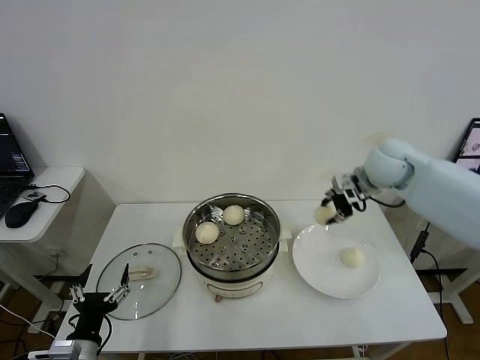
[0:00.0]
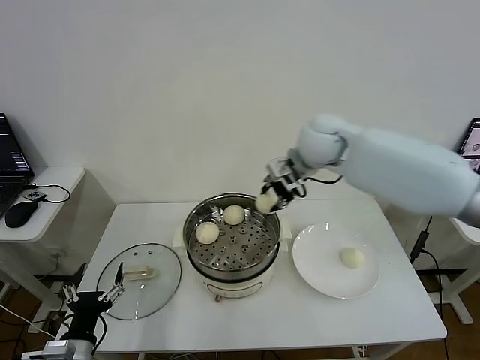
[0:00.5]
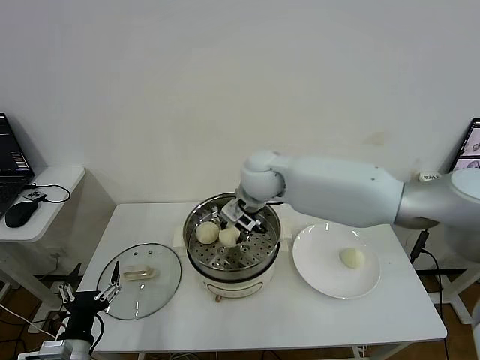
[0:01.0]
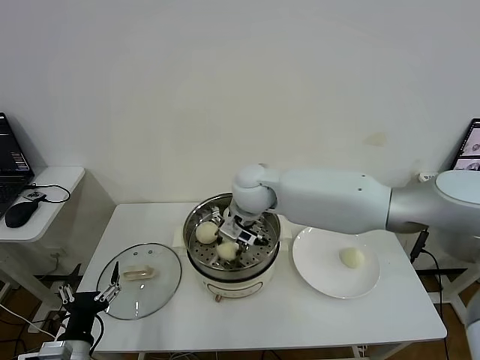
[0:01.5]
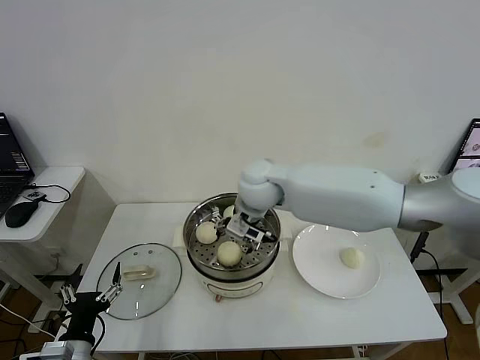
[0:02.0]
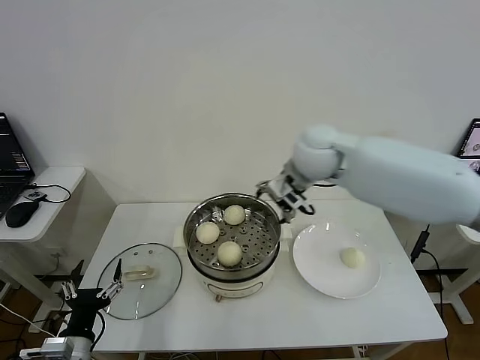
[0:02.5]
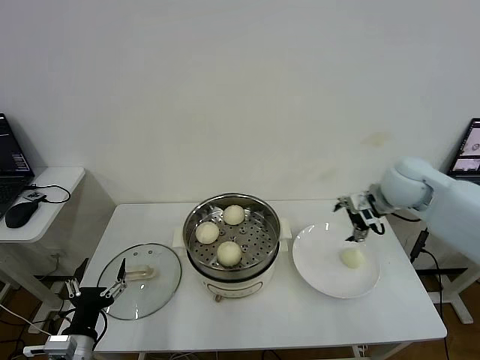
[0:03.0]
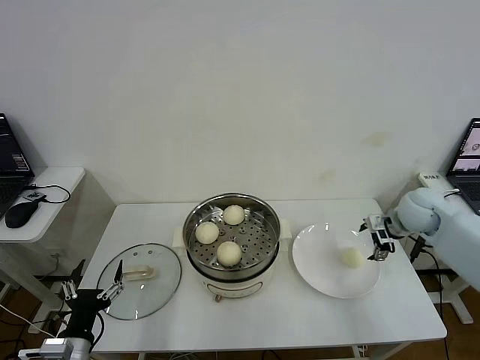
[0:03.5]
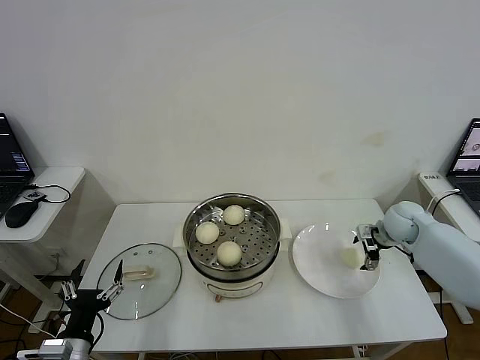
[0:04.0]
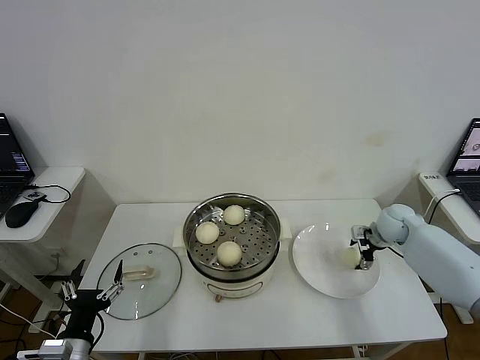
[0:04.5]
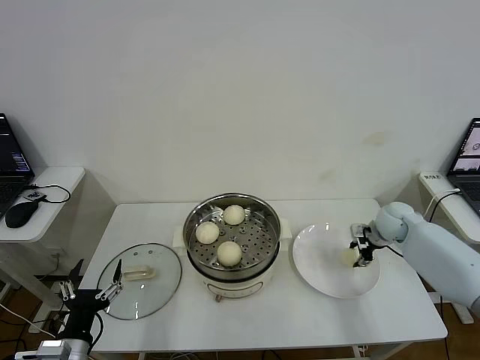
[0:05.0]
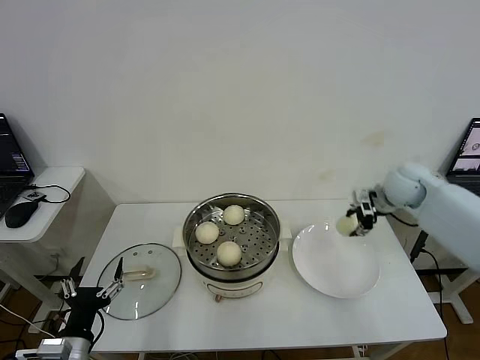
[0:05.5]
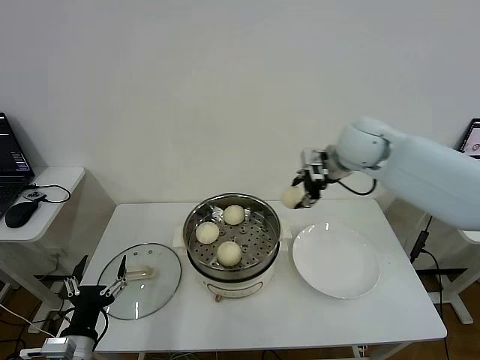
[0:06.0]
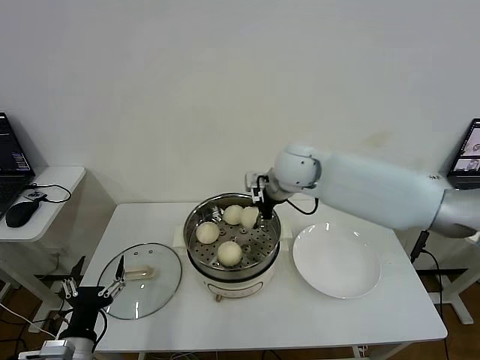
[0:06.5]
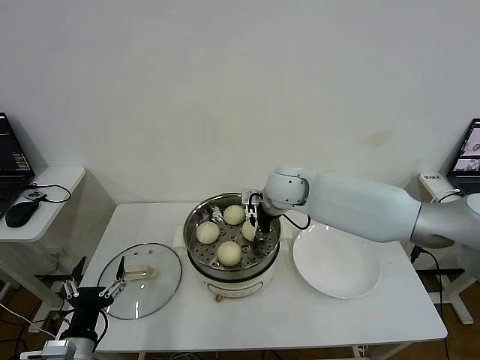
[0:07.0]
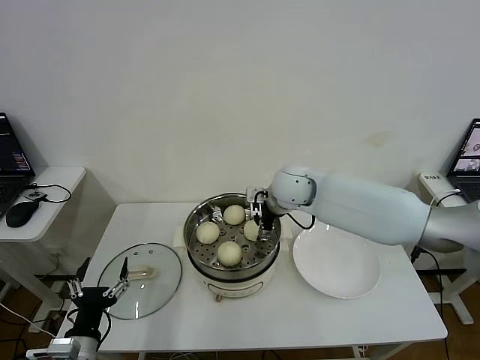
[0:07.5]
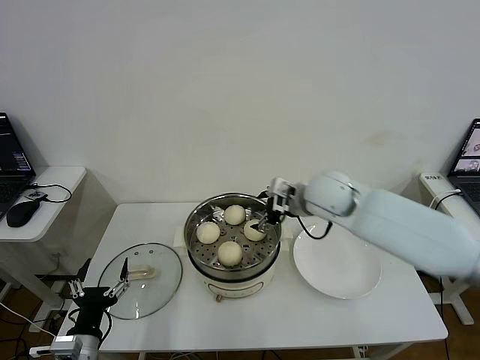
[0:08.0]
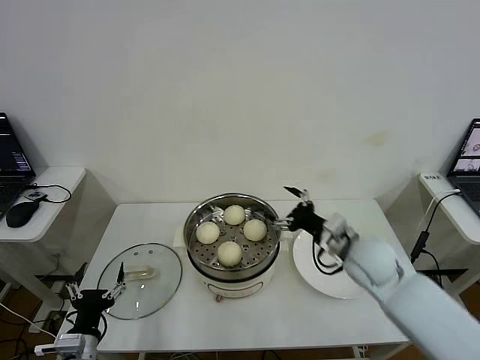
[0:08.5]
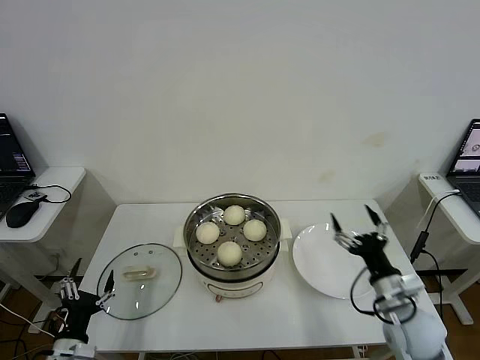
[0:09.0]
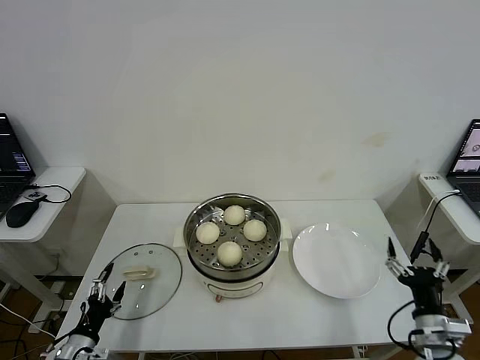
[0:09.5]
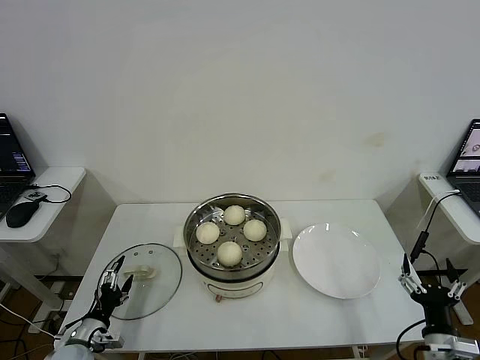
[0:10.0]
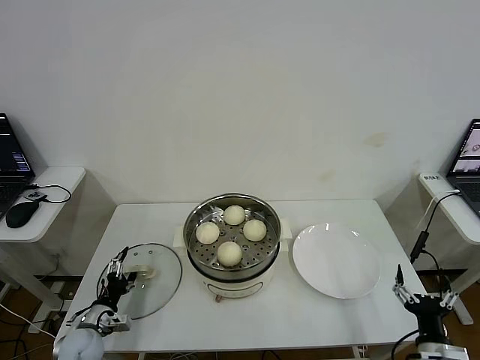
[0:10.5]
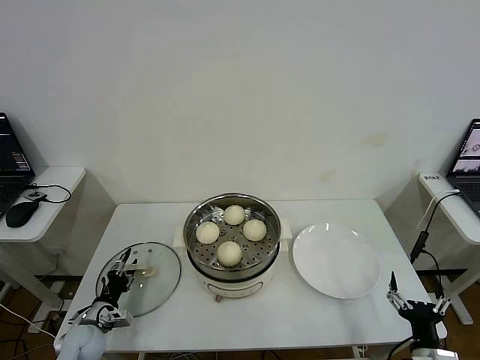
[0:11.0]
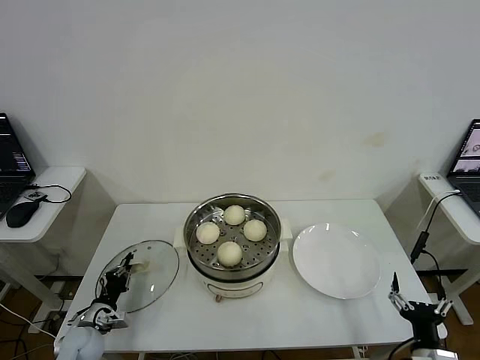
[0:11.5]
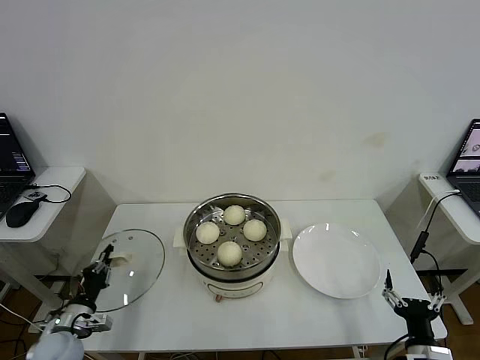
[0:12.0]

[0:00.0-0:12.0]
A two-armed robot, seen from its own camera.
Step, 0:00.0 to 0:01.5: Place the baozi on the steamer with right gripper.
Step, 0:02.5 to 0:04.5: Grasp the baozi in the plate with right gripper.
Step, 0:05.0 to 0:07.5: Place the baozi on the steamer with right gripper.
Step, 0:08.0 to 0:11.5: Grasp the pot lid with left gripper.
0:00.0 to 0:02.0: The right gripper goes approximately 25 cm to the left, and opens its fingers.
0:02.0 to 0:04.0: The right gripper shifts approximately 35 cm to the right.
0:04.0 to 0:06.0: The right gripper is displaced upward and to the left by about 30 cm, and closes its fingers.
0:06.0 to 0:08.0: The right gripper moves downward, to the left and backward, some 10 cm, and opens.
0:08.0 to 0:10.0: The left gripper moves downward, to the left and forward, approximately 15 cm. Meanwhile the right gripper shifts some 40 cm backward, to the right and downward.
0:10.0 to 0:12.0: The left gripper closes up.

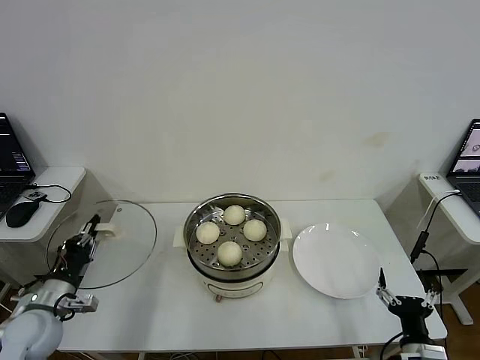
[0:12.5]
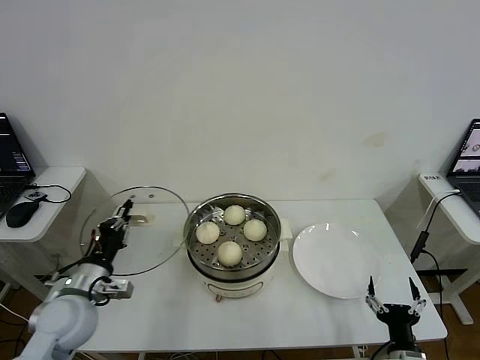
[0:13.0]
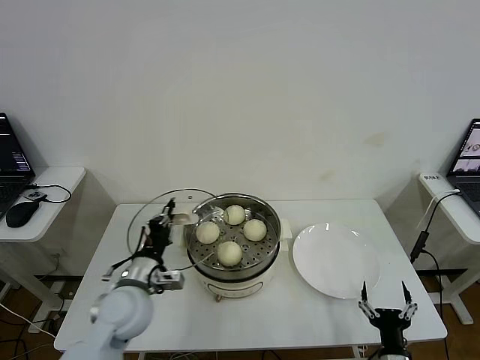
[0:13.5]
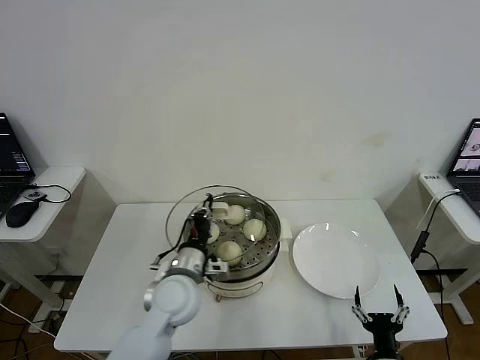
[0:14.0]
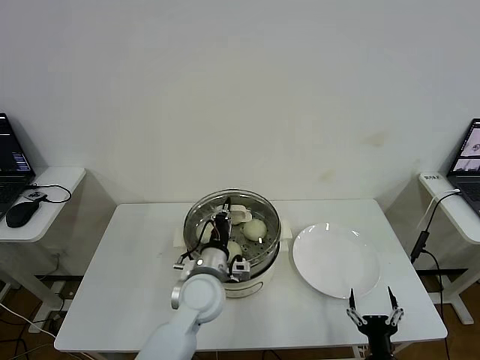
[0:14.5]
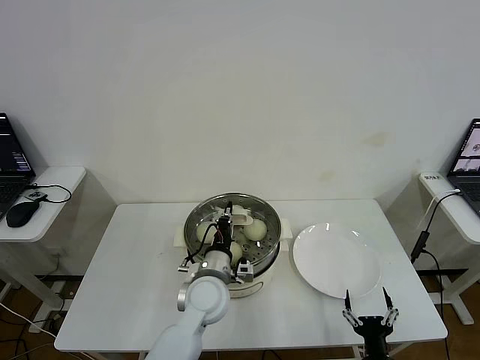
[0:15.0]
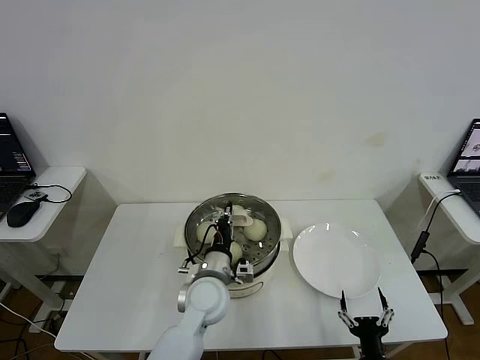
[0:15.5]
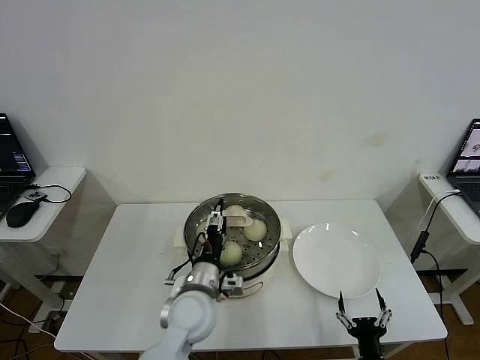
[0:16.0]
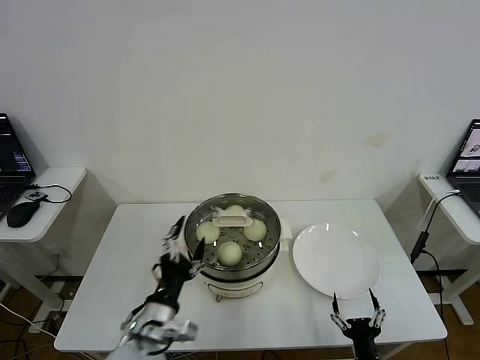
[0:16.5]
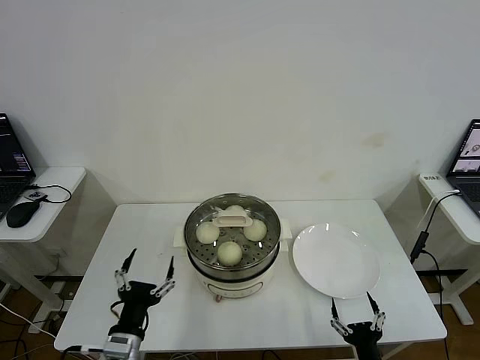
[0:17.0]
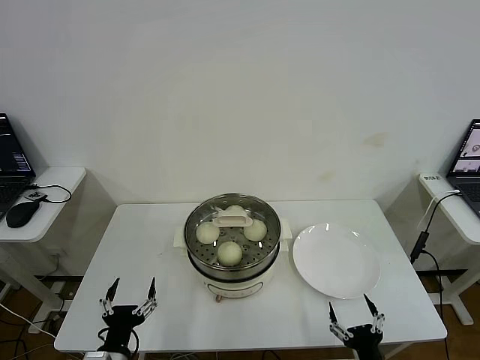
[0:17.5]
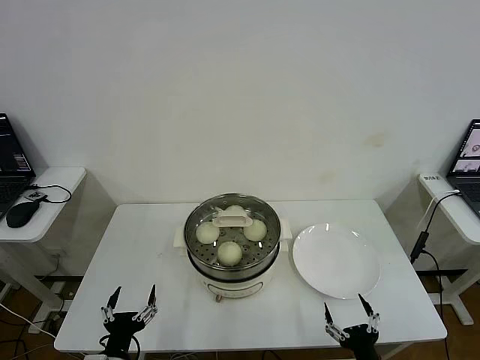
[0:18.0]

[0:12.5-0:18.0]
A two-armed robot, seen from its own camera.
Step, 0:12.5 to 0:15.5: Place the pot lid on the steamer with left gripper.
0:12.5 to 0:14.5: The left gripper heads to the right, covering some 35 cm, while the right gripper shifts roughly 10 cm downward and to the left.
0:14.5 to 0:16.0: The left gripper opens its fingers.
0:16.0 to 0:18.0: The left gripper moves to the left, backward and downward, some 25 cm.

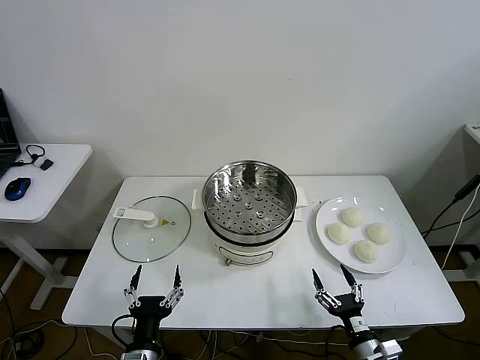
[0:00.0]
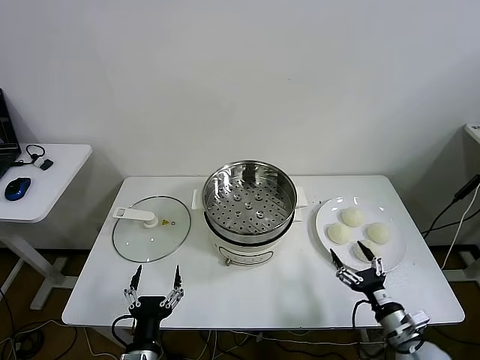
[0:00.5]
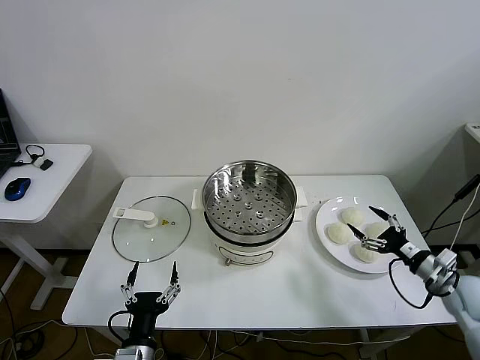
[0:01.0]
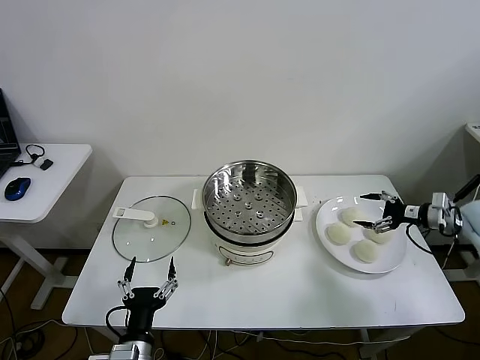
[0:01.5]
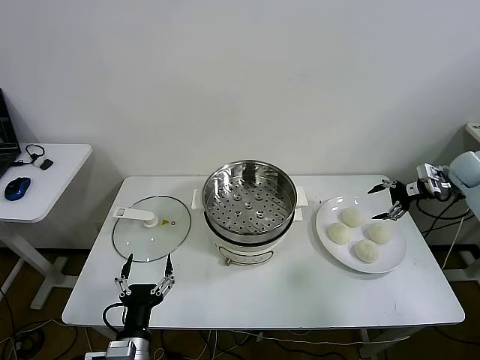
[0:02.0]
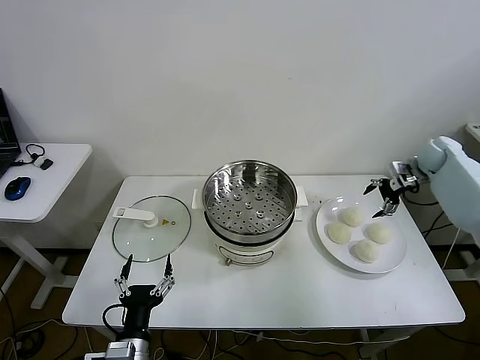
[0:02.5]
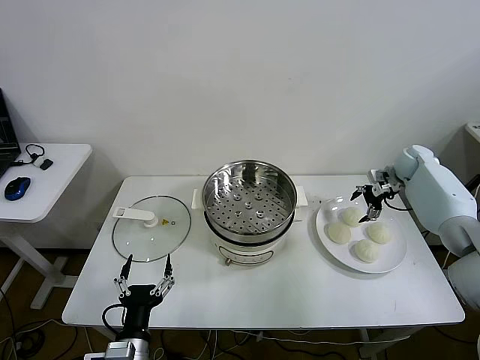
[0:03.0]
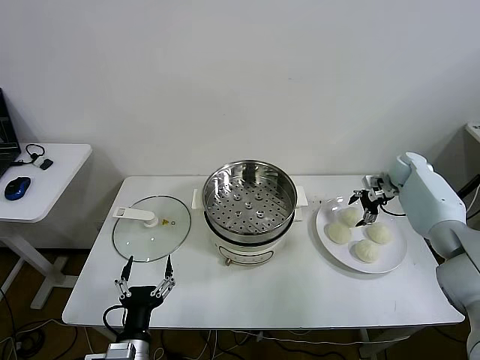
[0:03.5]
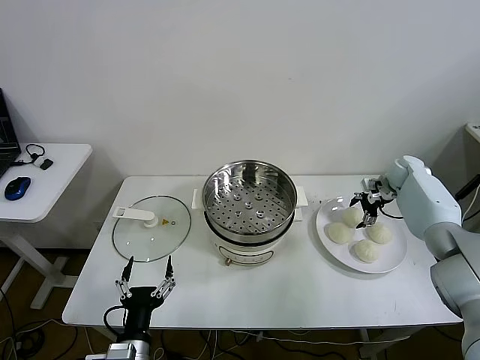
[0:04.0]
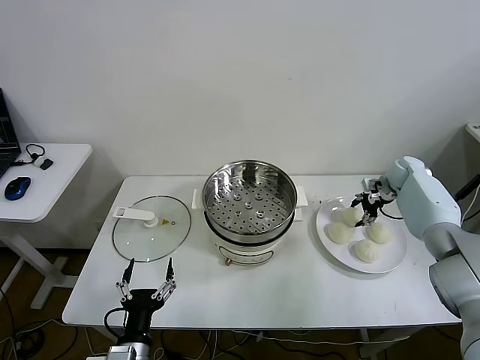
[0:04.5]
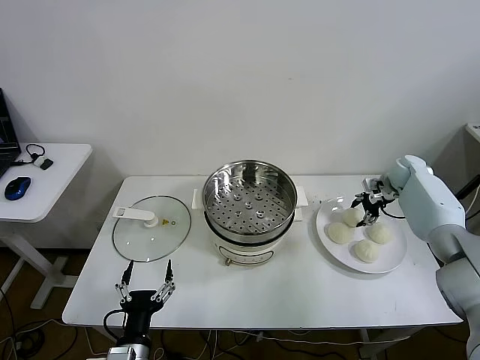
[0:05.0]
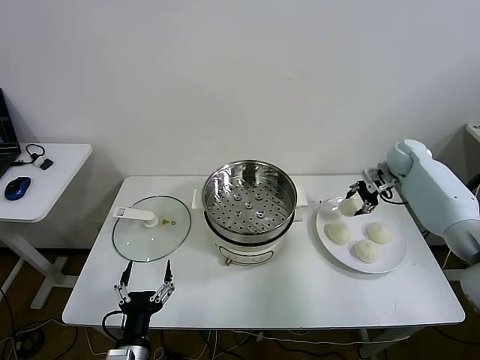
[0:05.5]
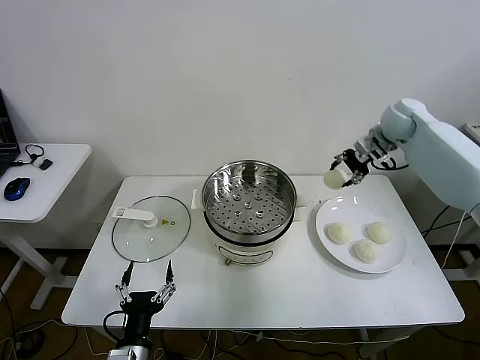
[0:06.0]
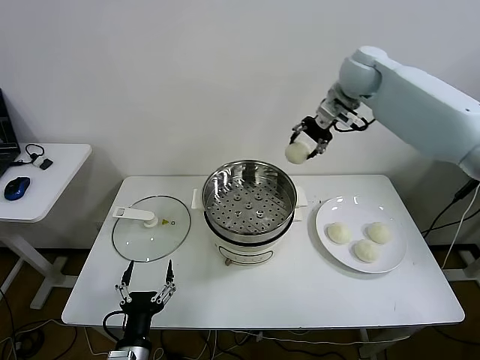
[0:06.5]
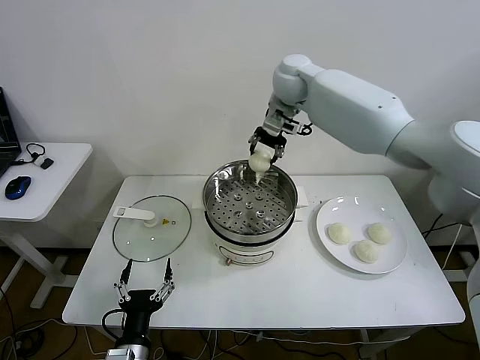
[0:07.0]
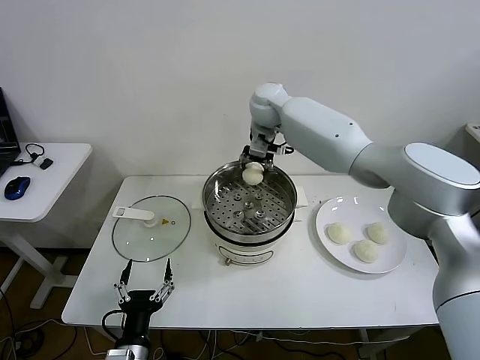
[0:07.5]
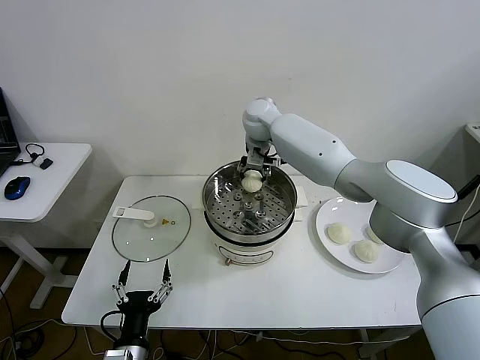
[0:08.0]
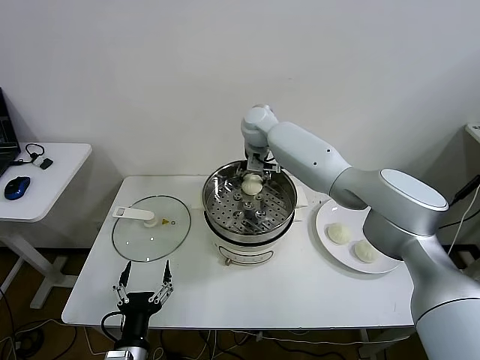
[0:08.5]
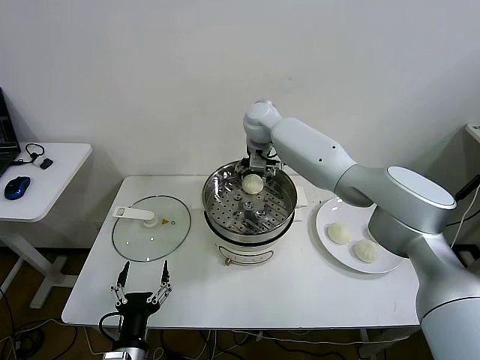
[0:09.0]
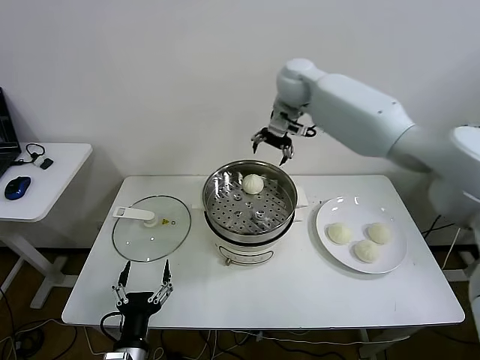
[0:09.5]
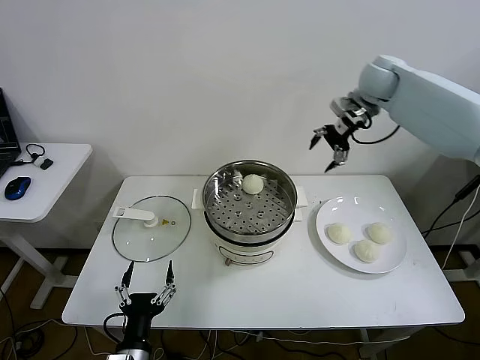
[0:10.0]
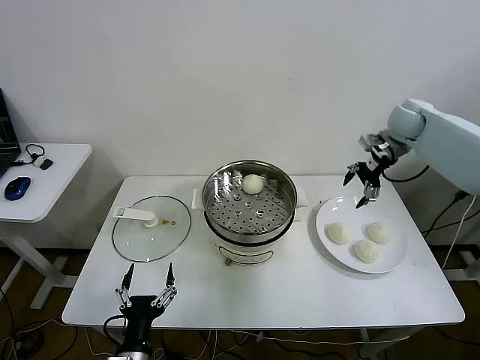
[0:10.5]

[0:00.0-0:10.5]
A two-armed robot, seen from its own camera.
Step, 0:00.0 to 0:04.5: Grasp the baozi in the plate with right gripper.
Step, 0:05.0 to 0:08.5: Place the baozi on the steamer with right gripper.
0:02.0 to 0:04.0: The right gripper moves downward, to the left and forward, roughly 15 cm.
0:04.0 to 0:06.5: The right gripper shifts some 40 cm upward and to the left, and closes up.
0:06.5 to 0:08.5: The right gripper goes roughly 25 cm to the left and downward, and opens its fingers.
0:08.5 to 0:10.5: The right gripper goes roughly 35 cm to the right, and opens its fingers.
